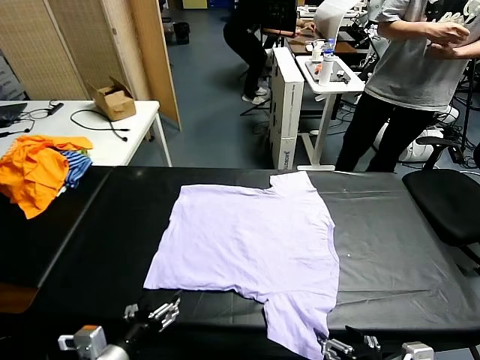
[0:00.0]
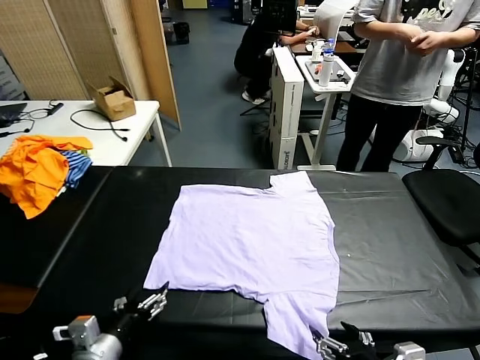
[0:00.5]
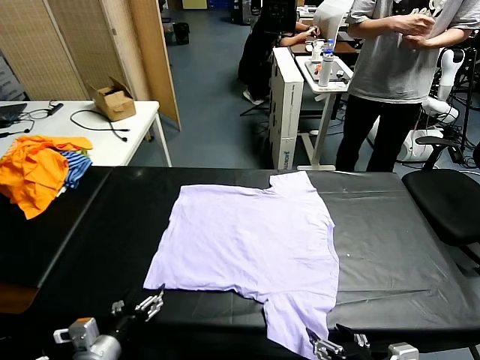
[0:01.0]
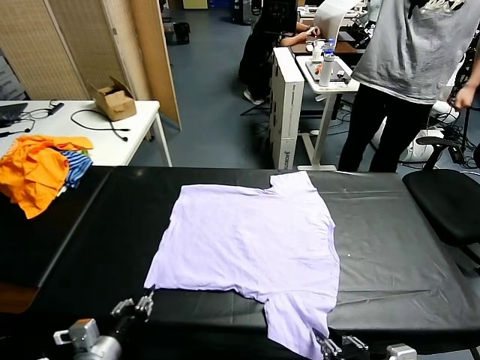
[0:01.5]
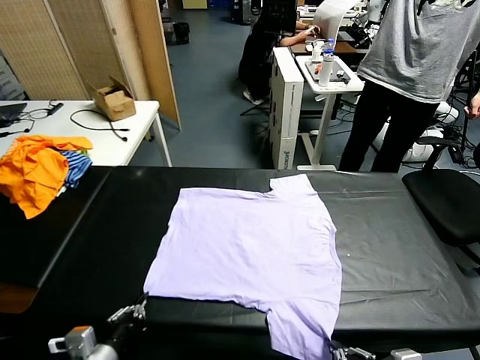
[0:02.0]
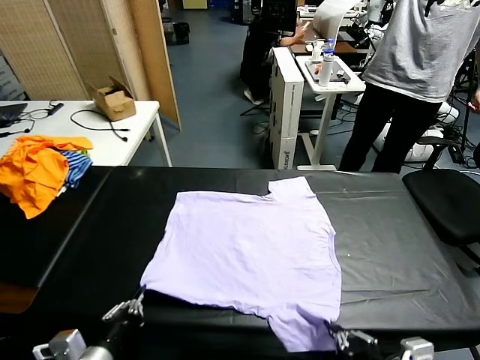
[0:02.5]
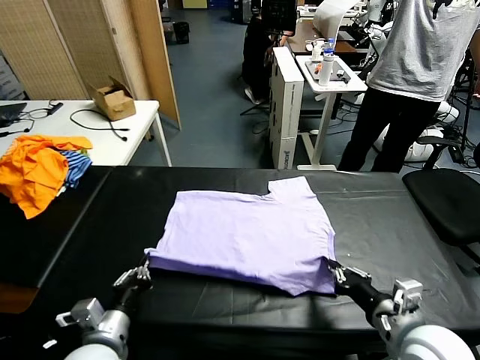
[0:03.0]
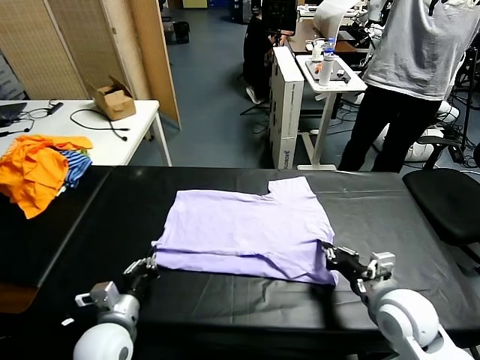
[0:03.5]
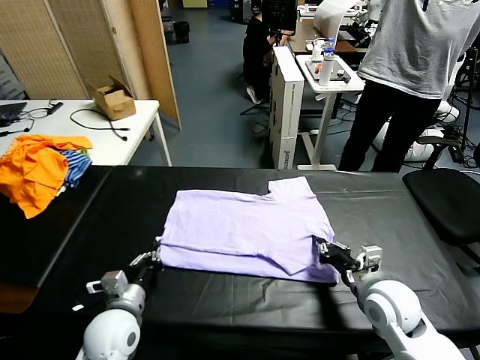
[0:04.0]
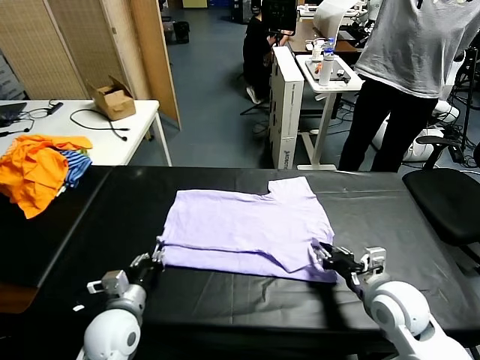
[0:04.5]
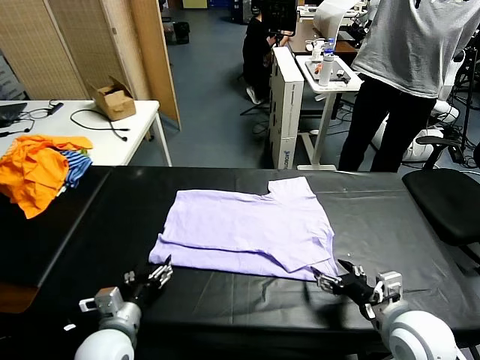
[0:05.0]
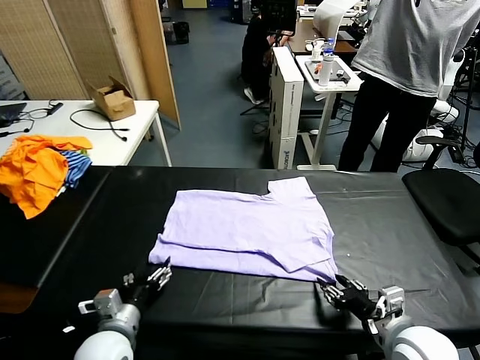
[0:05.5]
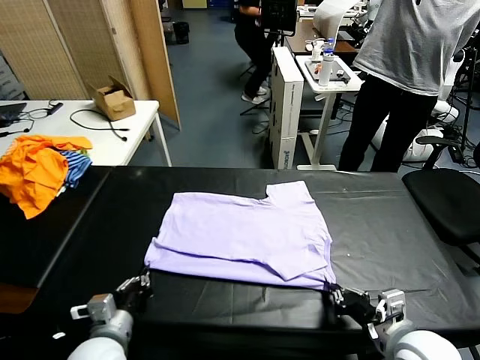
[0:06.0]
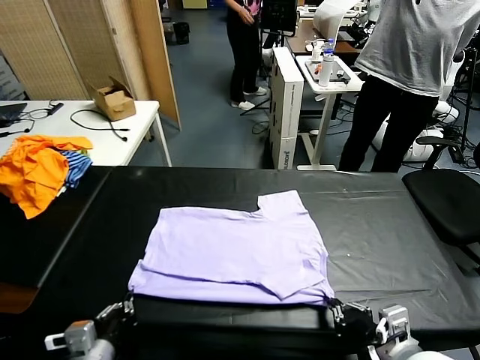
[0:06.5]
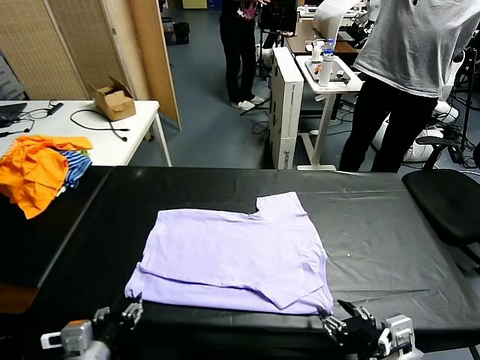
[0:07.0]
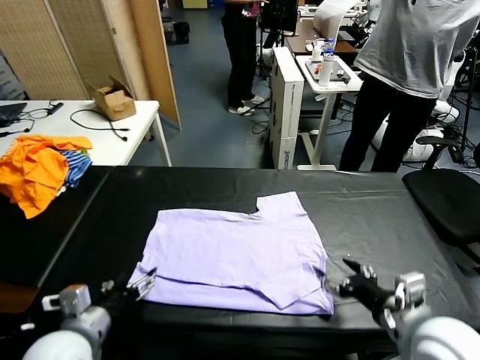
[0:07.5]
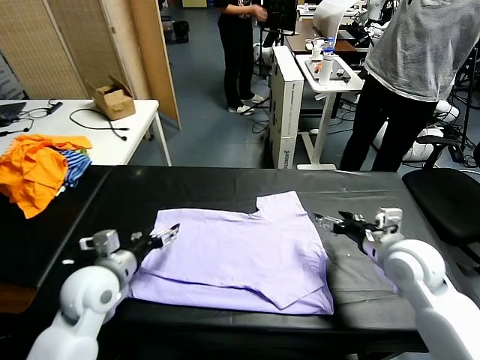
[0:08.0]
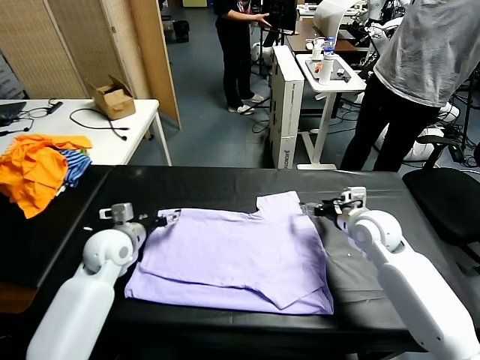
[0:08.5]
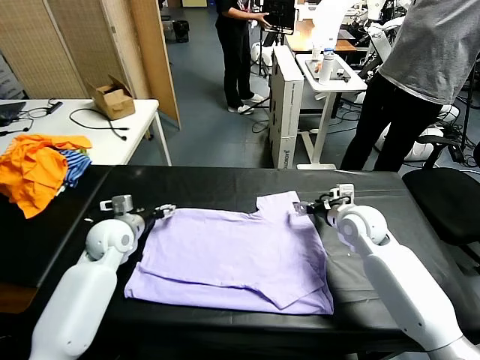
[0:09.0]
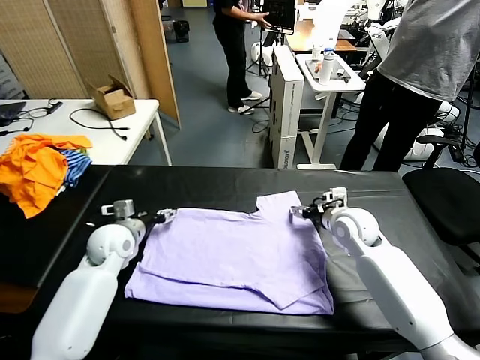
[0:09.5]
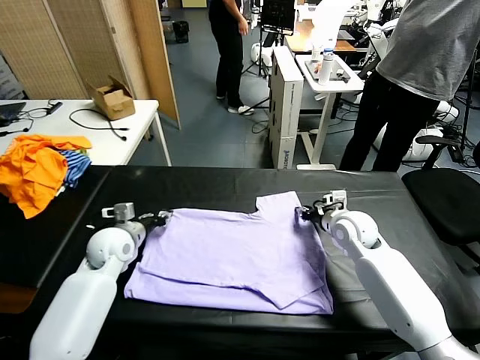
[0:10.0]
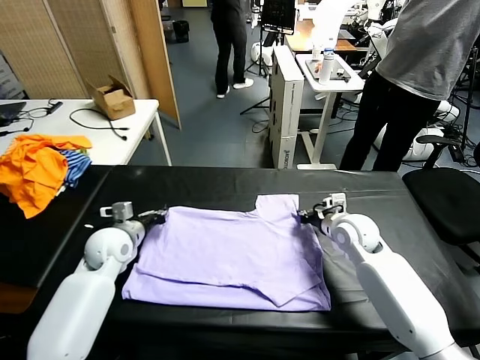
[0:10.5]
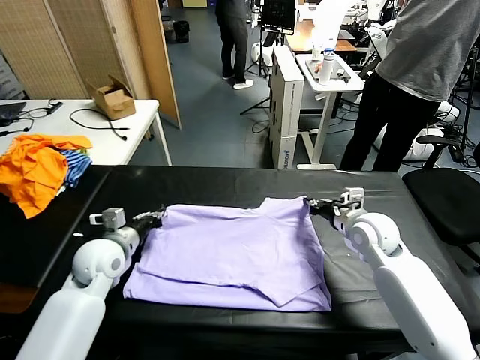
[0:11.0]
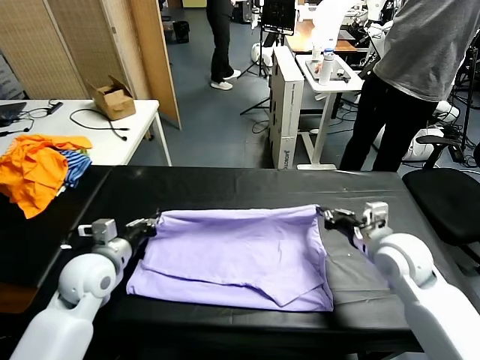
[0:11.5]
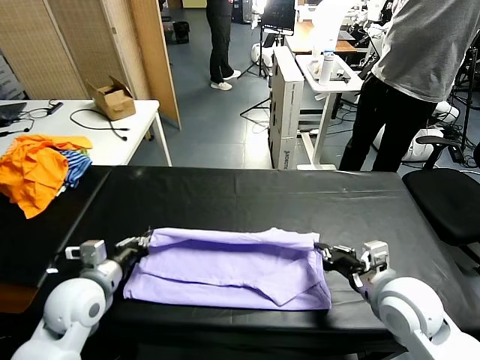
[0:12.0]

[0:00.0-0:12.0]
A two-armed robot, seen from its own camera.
Task of the whole recording: fold and organize the clothes.
Step, 0:00.0 to 0:01.5: use both grippers simultaneously to clamp the lower edge of the clothing fabric.
Step, 0:02.0 to 0:04.5: use both grippers to drag the lower edge of the fabric forward and fold it over the upper edge.
Step, 0:05.0 to 0:07.0: Drag the clothes downward with both gripper.
Step, 0:07.5 to 0:10.5: use both grippers simultaneously to clamp the upper edge of the clothing fabric.
0:02.0 to 0:04.0: Both grippers move forward and downward, some 20 cm.
0:04.0 to 0:06.0: Both grippers travel together backward, approximately 10 cm. The left gripper opens, then closes again. The right gripper opens, then closes again.
0:06.0 to 0:08.0: The two grippers go some 25 cm forward. The right gripper opens. The left gripper opens up.
0:08.0 to 0:10.0: The left gripper closes up. The right gripper moves downward, about 5 cm, and closes up.
0:10.0 to 0:12.0: The grippers both shift backward by some 20 cm.

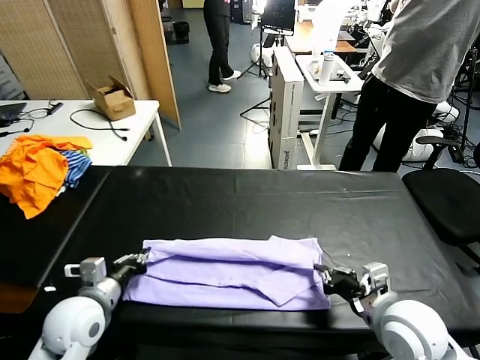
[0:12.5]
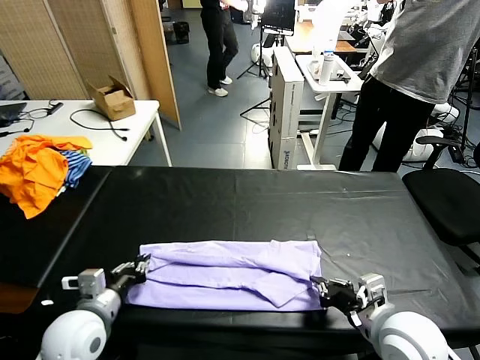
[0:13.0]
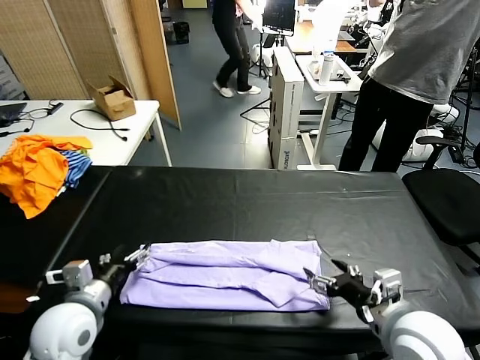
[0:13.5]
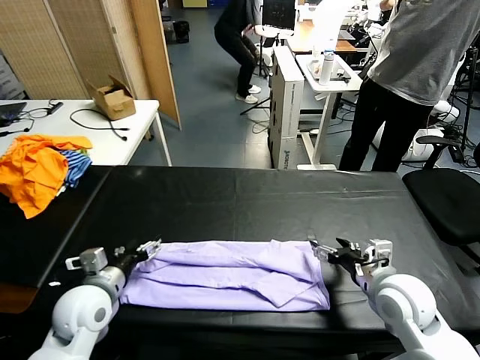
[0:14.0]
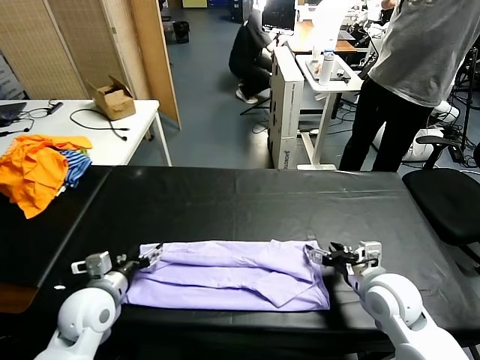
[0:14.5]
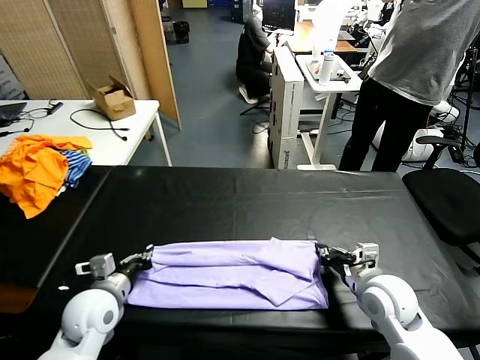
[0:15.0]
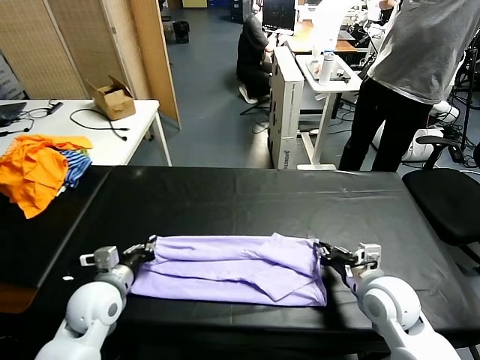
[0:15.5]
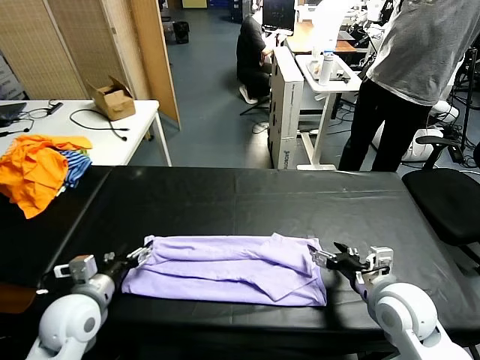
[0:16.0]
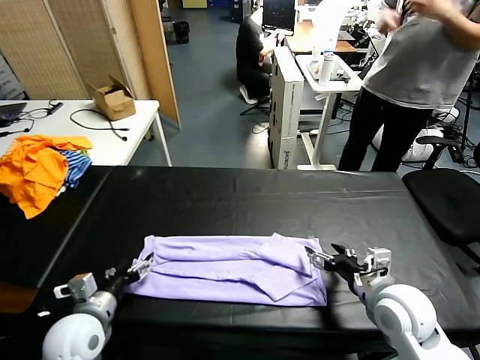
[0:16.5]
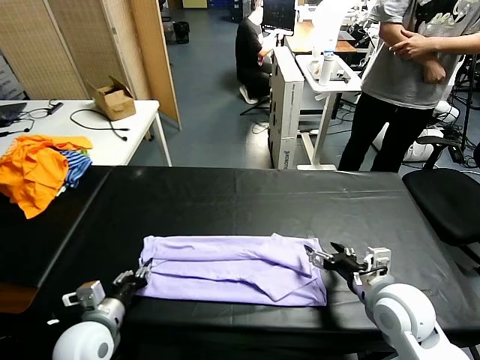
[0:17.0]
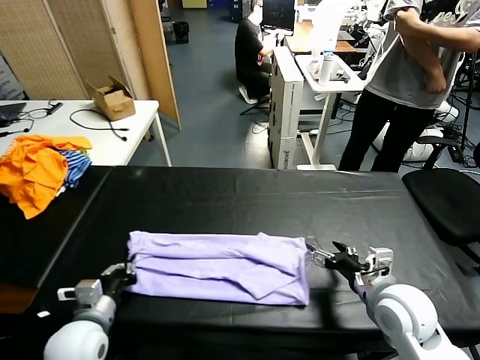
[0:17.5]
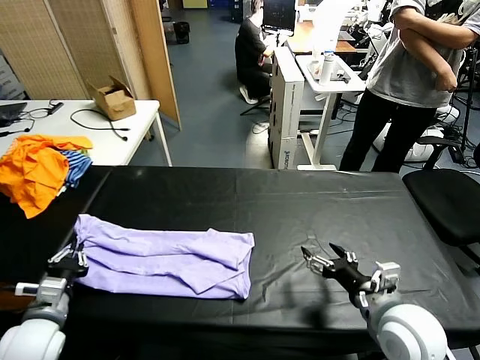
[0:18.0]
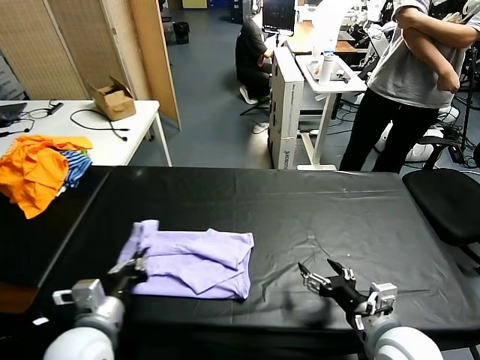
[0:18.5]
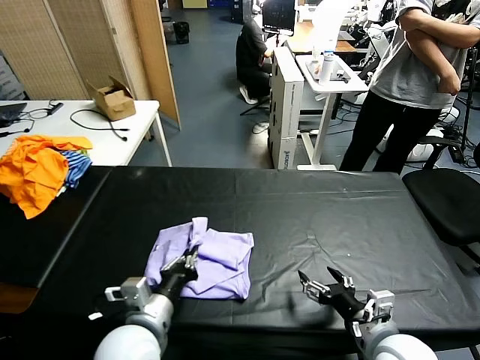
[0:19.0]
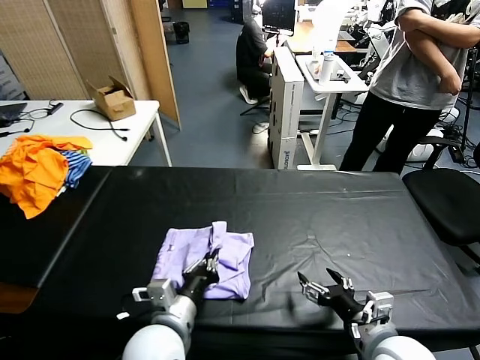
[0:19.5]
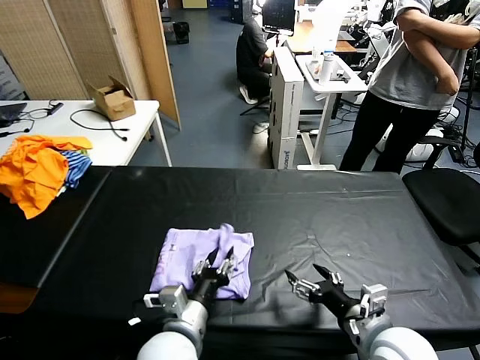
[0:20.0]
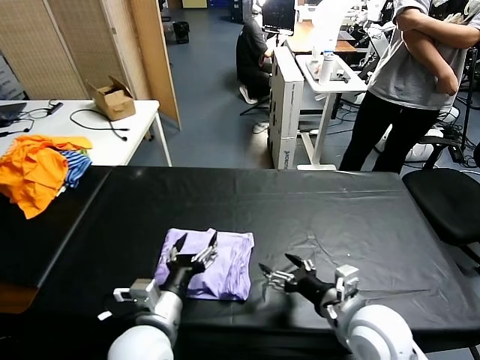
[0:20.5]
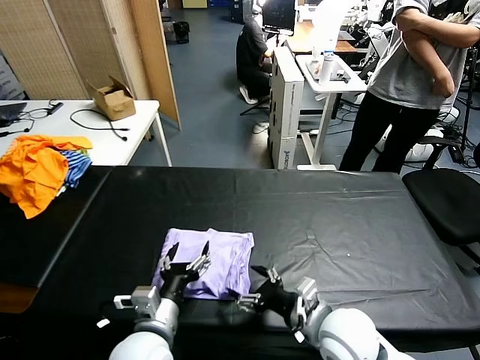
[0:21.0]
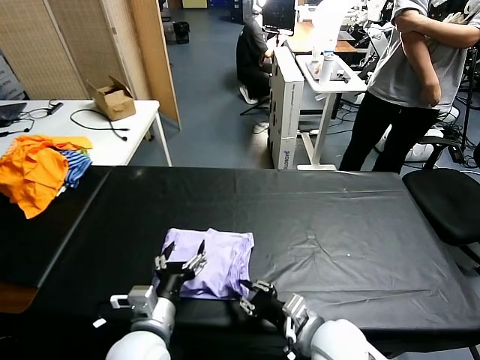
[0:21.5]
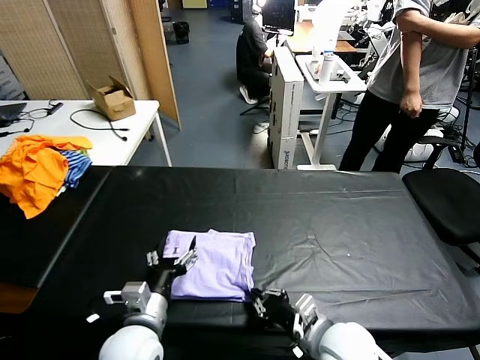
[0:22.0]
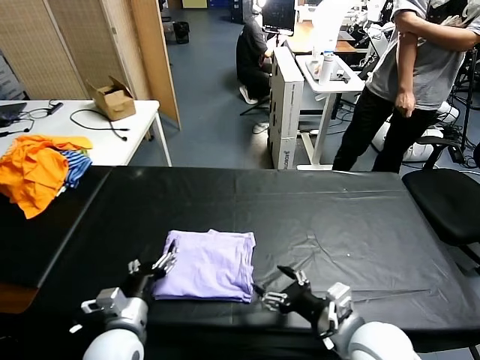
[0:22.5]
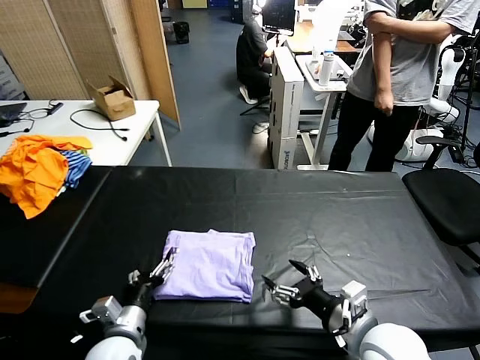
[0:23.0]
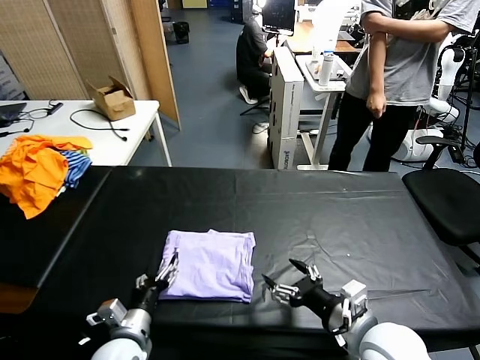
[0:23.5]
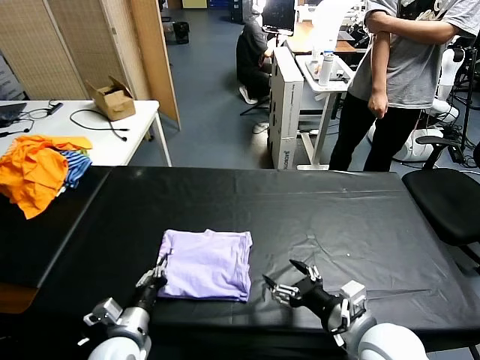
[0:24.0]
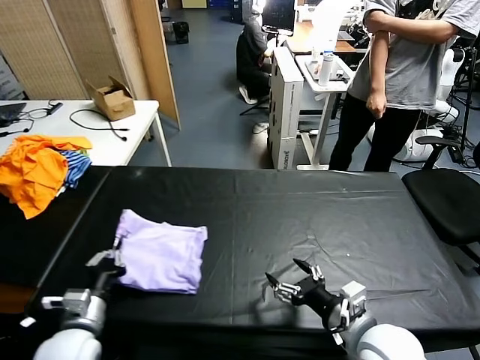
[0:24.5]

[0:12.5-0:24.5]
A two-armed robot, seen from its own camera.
Task of the whole recording: fold and organize the clothes.
Step, 0:12.5 to 0:15.5: use both grippers to drag the upper edge of the fabric backward and fold it over the lower edge.
Step, 0:16.0 to 0:17.0: use the left gripper to clamp the left edge of the fabric.
Step, 0:17.5 to 0:22.0: use the left gripper to drag the left edge of the fabric to the left and folds it over the right edge.
0:12.5 to 0:14.5: The right gripper goes some 10 cm forward, and opens, while the left gripper opens up.
0:14.5 to 0:16.5: The right gripper opens its fingers. Meanwhile the left gripper travels backward by some 5 cm, and closes and opens again.
0:16.5 to 0:18.5: The right gripper travels backward by approximately 10 cm, while the left gripper travels to the right and upward by about 10 cm, and closes.
0:18.5 to 0:20.5: The left gripper is displaced to the right by approximately 5 cm, and opens up. The right gripper changes place by about 5 cm.
0:20.5 to 0:22.5: The left gripper shifts approximately 10 cm to the left and downward. The right gripper closes and opens again.
0:22.5 to 0:24.5: The left gripper shifts approximately 10 cm to the left, and closes.

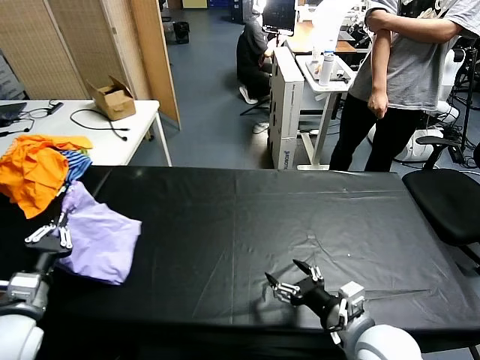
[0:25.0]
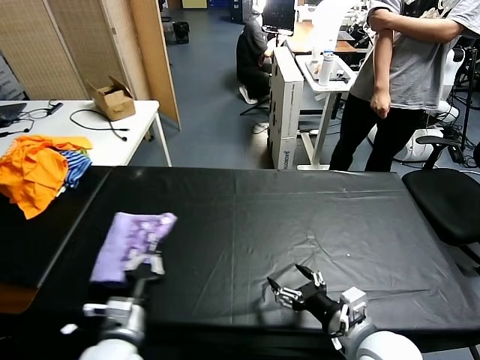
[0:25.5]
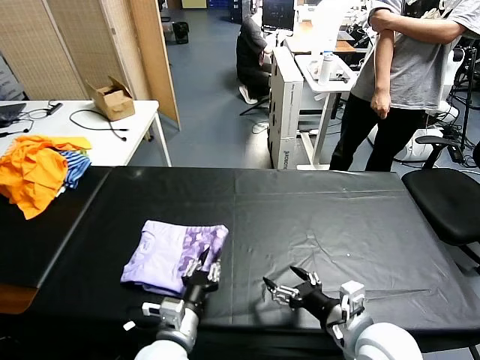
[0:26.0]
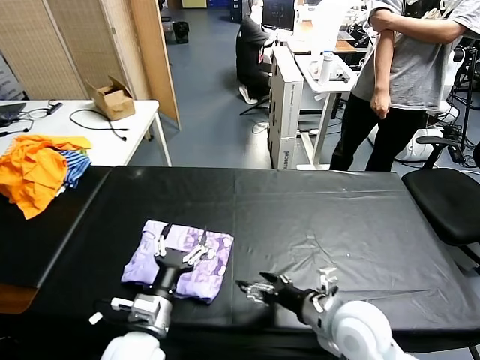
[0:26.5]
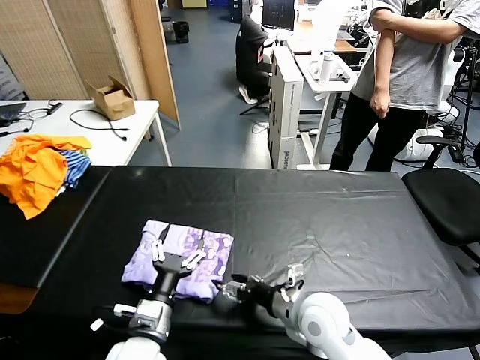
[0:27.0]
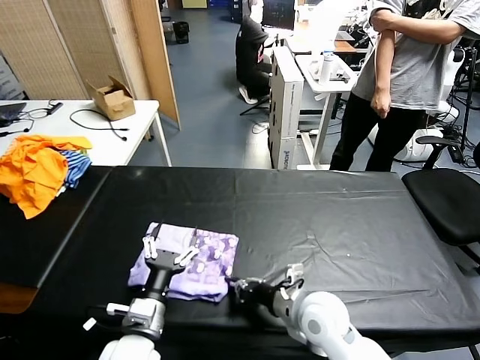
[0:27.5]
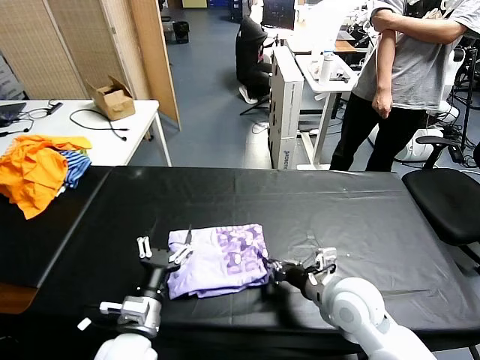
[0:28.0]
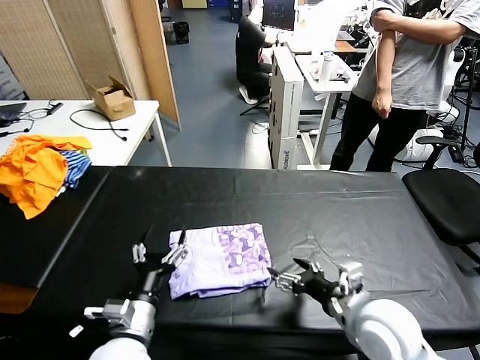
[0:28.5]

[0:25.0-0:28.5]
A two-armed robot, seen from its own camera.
Task of the whole recording: fold and organize the clothes.
Step, 0:26.5 to 0:28.0: Drag the clothes to the center of the table.
0:25.0 to 0:27.0: The left gripper goes some 20 cm to the right, and opens its fingers, while the right gripper heads forward, to the left and downward, covering roughly 10 cm.
0:27.0 to 0:28.5: The right gripper shifts about 10 cm to the right and upward, and closes and opens again.
